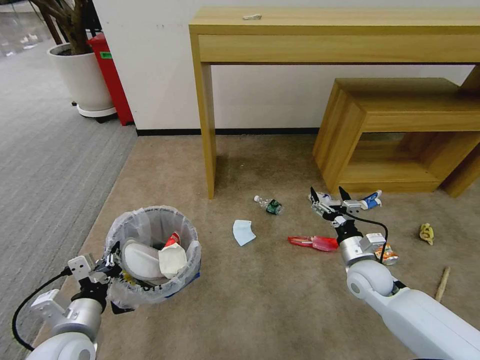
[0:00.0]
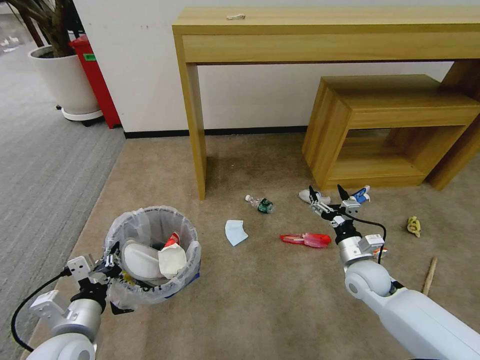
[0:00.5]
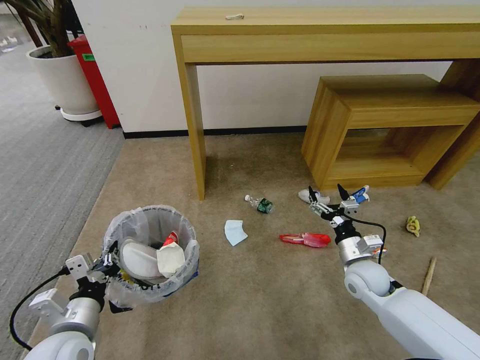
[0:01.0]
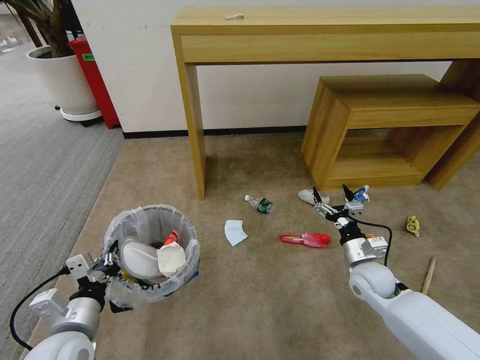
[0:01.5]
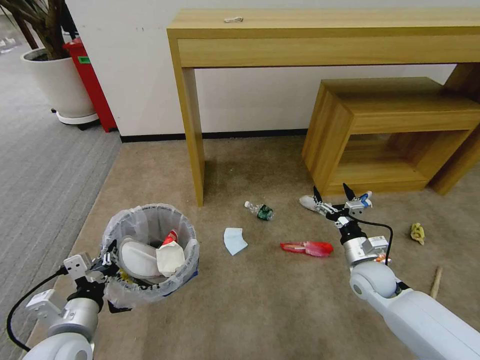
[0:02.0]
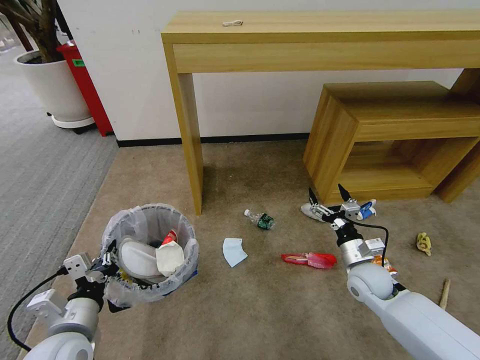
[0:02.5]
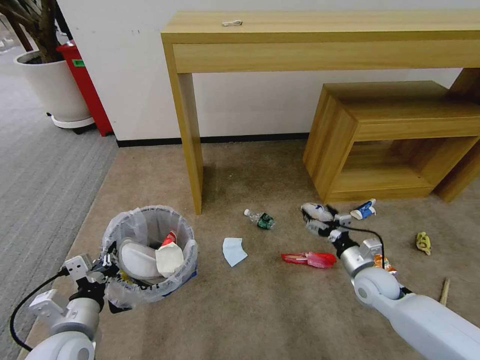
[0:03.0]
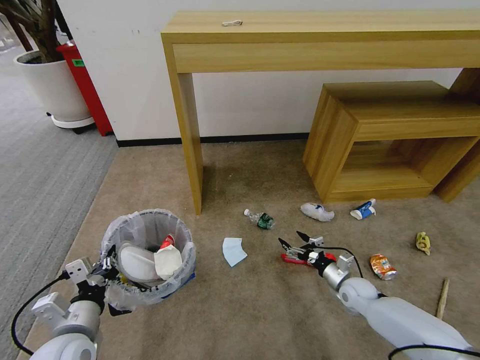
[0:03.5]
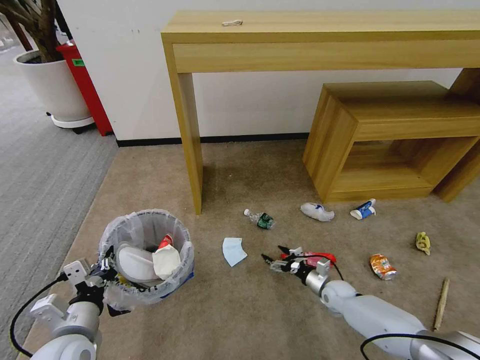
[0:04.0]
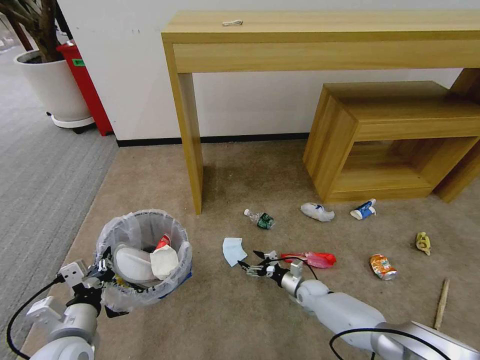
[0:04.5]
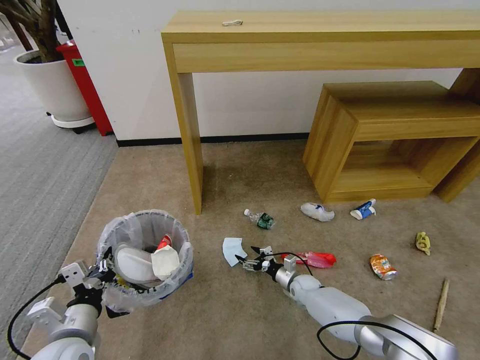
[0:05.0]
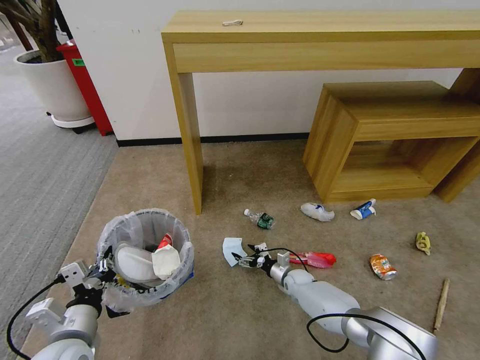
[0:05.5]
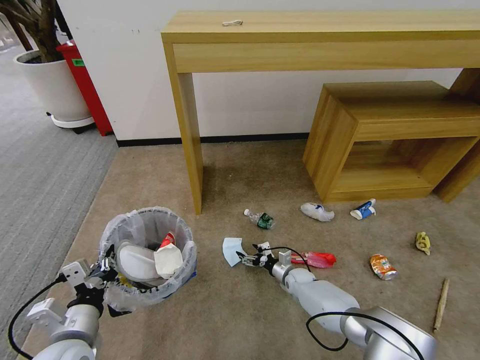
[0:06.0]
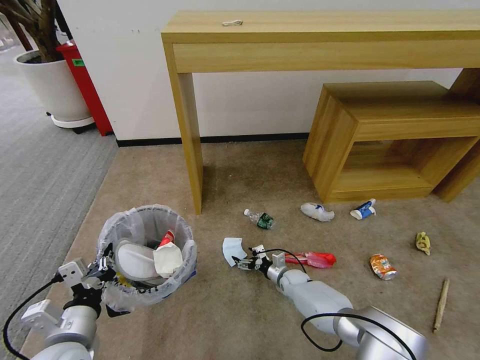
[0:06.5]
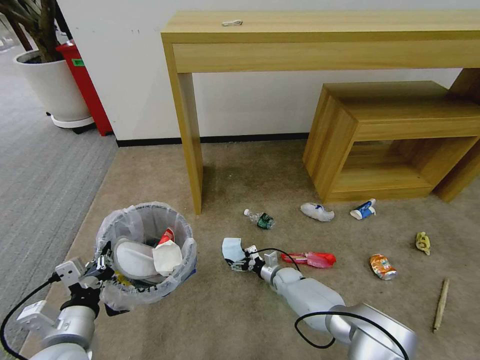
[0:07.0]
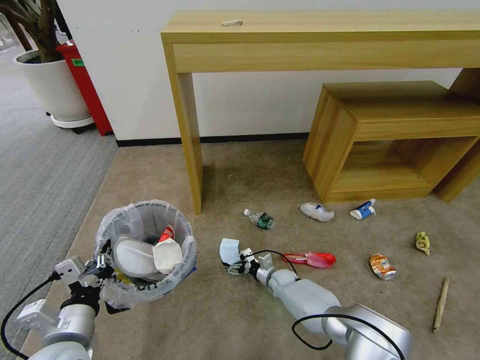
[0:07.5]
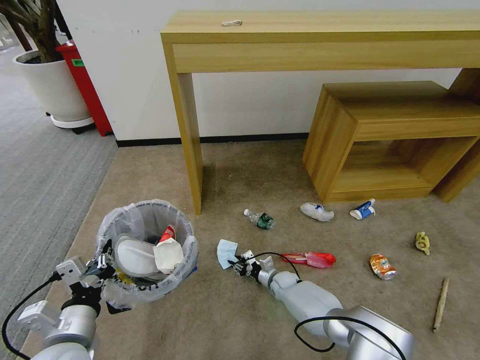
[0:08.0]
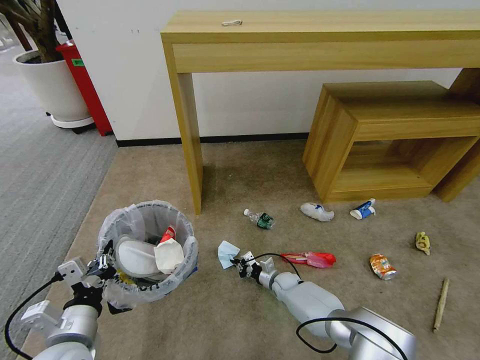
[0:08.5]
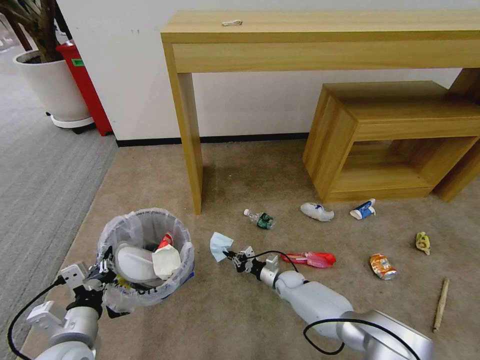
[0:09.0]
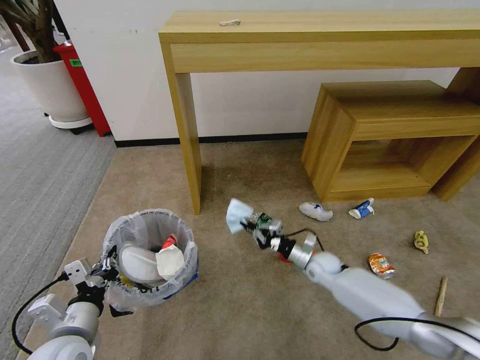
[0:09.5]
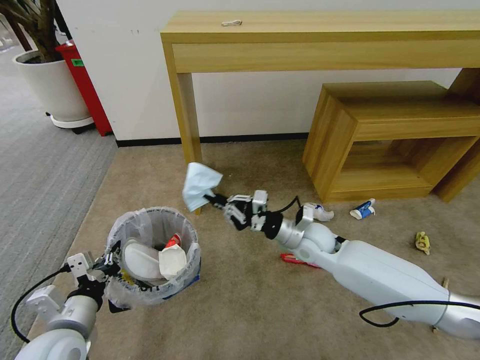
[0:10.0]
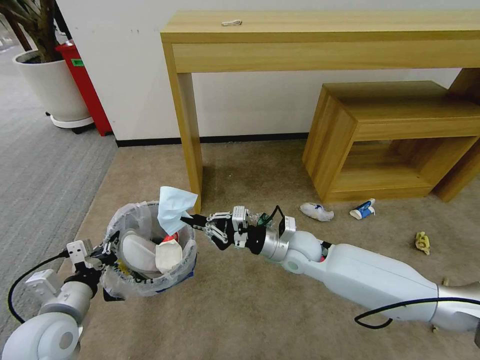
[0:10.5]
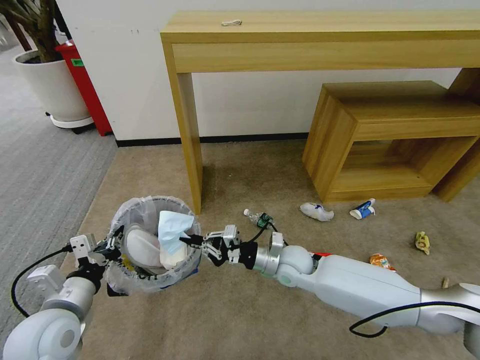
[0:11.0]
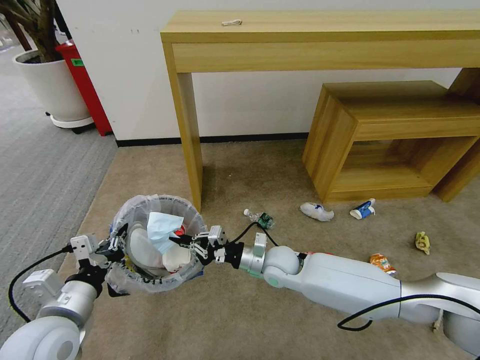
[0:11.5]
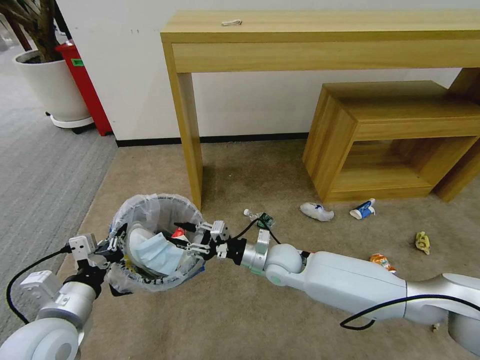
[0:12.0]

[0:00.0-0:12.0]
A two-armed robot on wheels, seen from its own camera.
Task of the whole recording: Pick up the trash bin and place the garbage on the floor into it.
0:02.0 to 0:04.0: The right gripper goes some 20 cm downward.
0:04.0 to 0:06.0: The right gripper shifts some 10 cm to the left and forward.
0:06.0 to 0:08.0: The right gripper moves to the left, some 5 cm, and closes.
0:08.0 to 0:10.0: The right gripper goes approximately 30 cm upward, and closes.
0:10.0 to 0:12.0: The right gripper moves to the left and downward, approximately 10 cm, and opens its fingers.

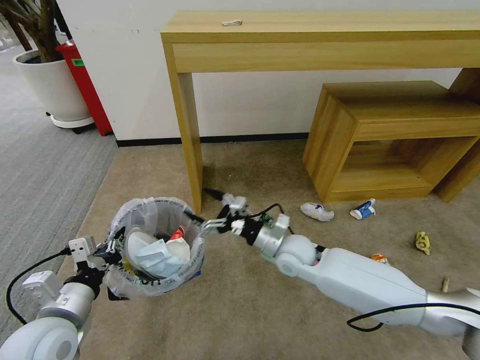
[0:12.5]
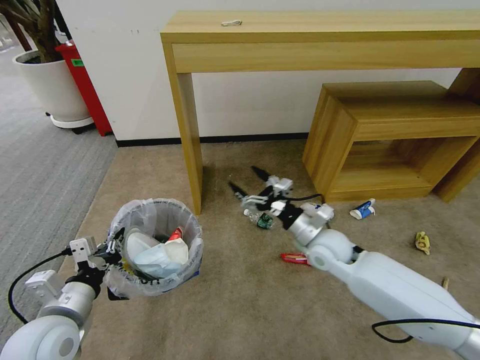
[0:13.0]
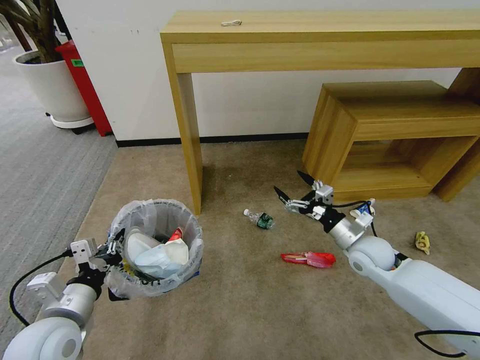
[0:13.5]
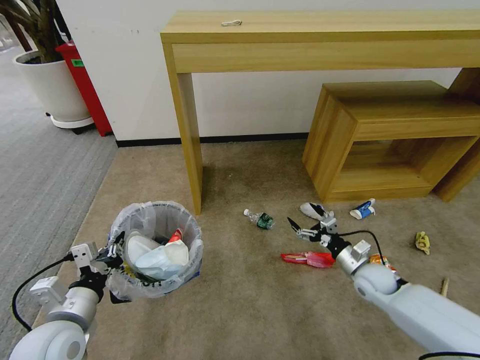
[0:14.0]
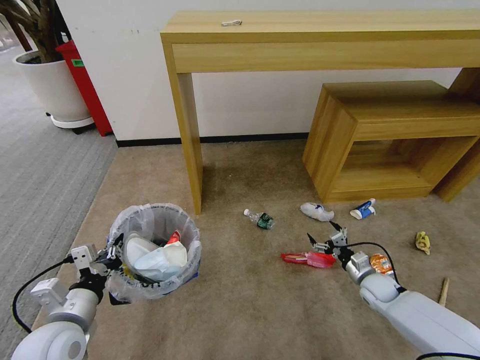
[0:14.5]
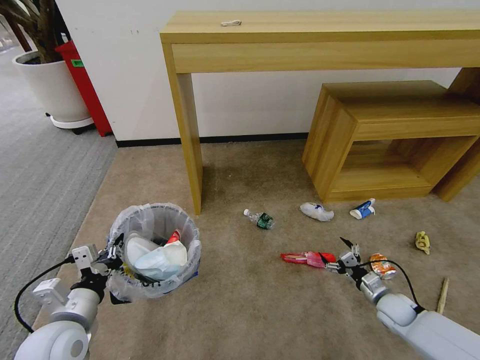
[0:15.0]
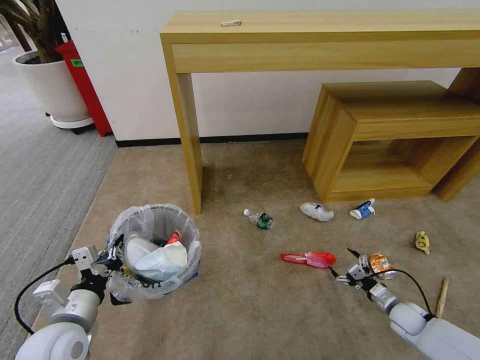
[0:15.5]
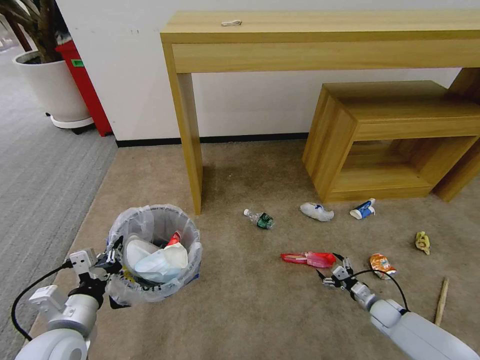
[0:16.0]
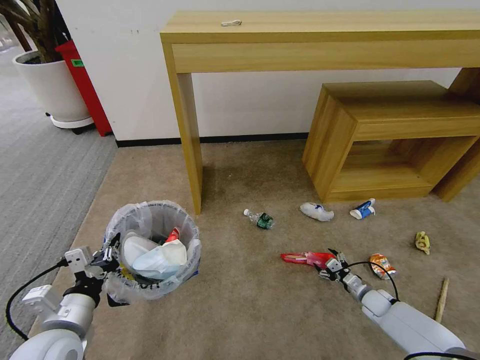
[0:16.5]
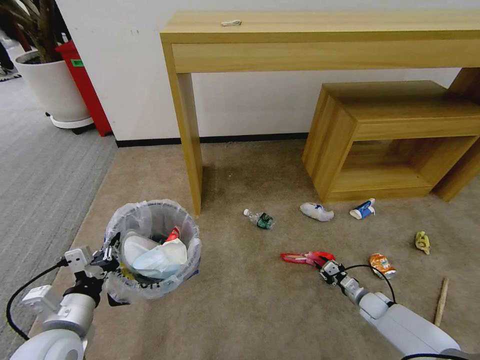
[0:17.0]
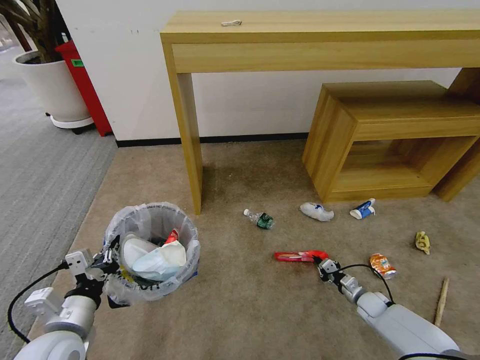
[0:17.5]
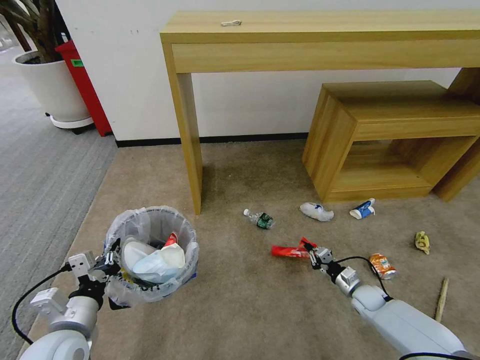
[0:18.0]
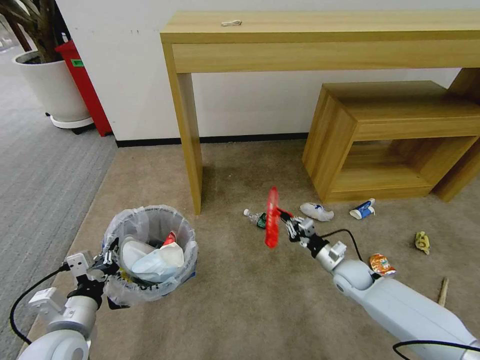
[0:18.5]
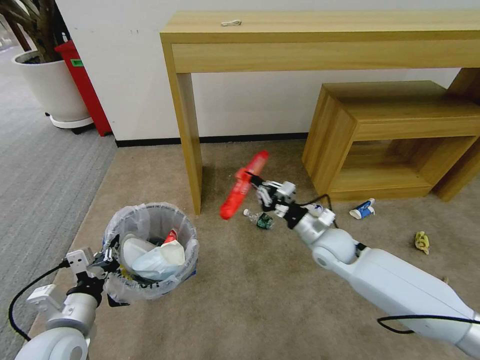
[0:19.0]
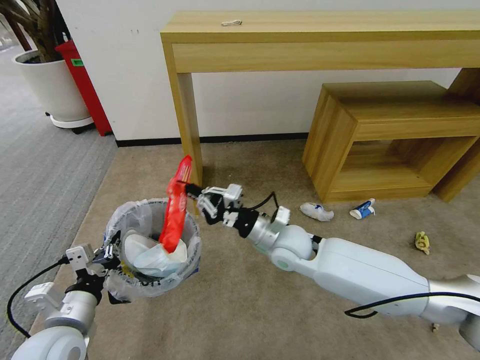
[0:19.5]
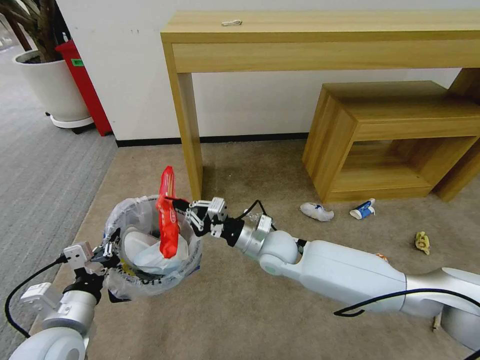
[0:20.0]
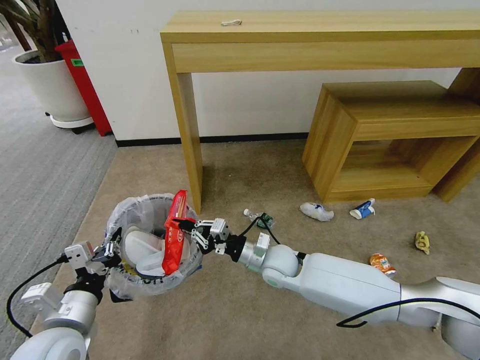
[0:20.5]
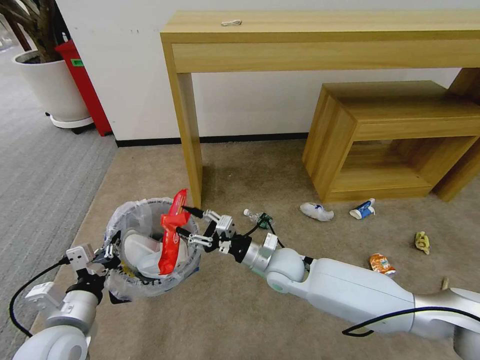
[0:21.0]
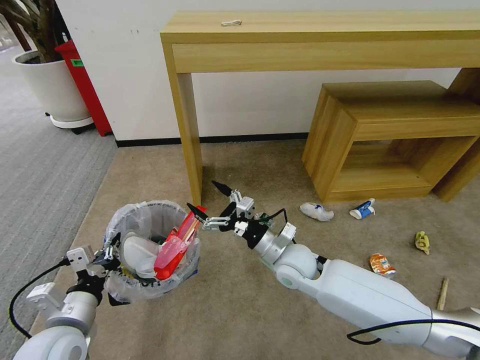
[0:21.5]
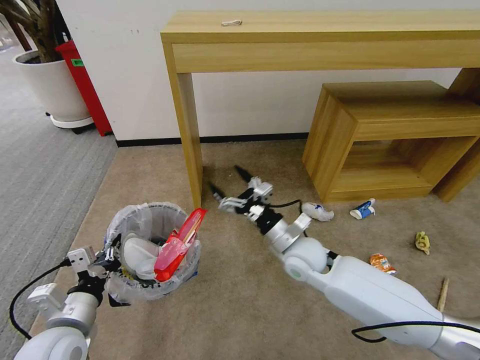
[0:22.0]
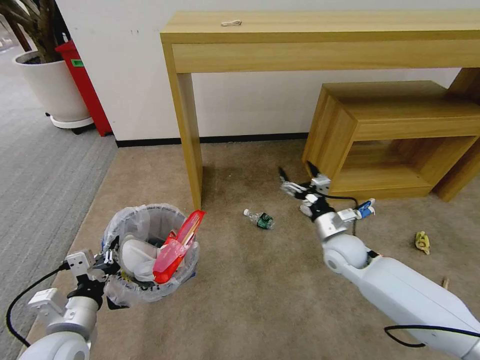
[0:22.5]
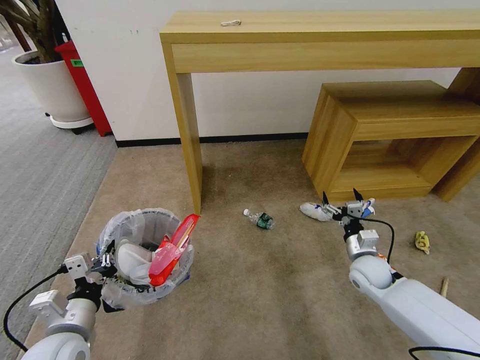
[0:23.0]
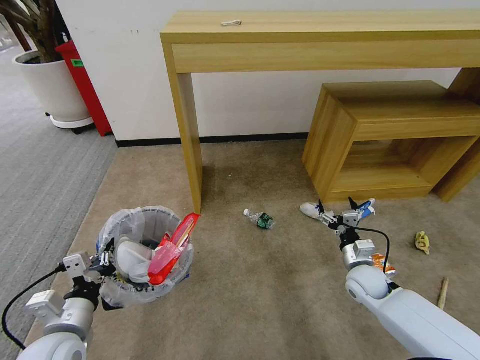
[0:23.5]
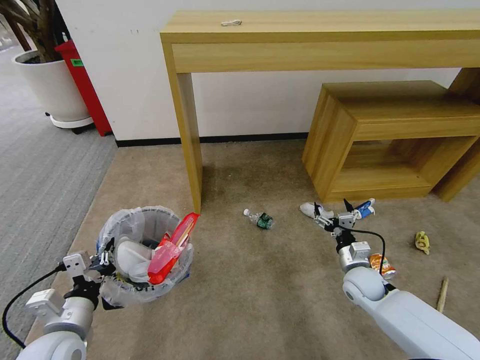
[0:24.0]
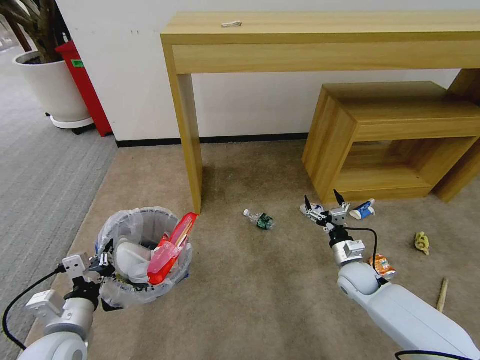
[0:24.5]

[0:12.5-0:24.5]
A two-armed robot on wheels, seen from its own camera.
Task of the whole recording: Pick up the trash bin and place the garbage on the floor into it.
0:12.5 to 0:14.5: The right gripper heads to the right and downward, covering approximately 30 cm.
0:14.5 to 0:16.5: The right gripper is displaced downward by roughly 10 cm.
0:16.5 to 0:18.5: The right gripper travels upward and to the left by approximately 15 cm, and closes up.
0:18.5 to 0:20.5: The right gripper goes roughly 20 cm to the left.
0:20.5 to 0:22.5: The right gripper shifts approximately 15 cm to the right, and opens its fingers.
0:22.5 to 0:24.5: The right gripper is displaced downward and to the right by roughly 10 cm.

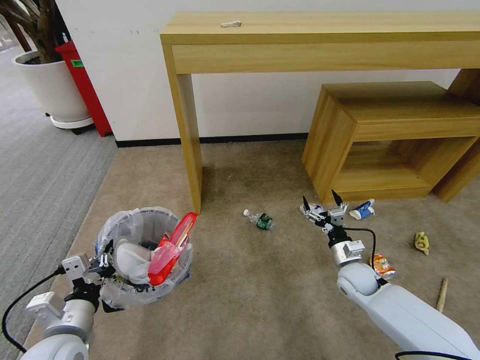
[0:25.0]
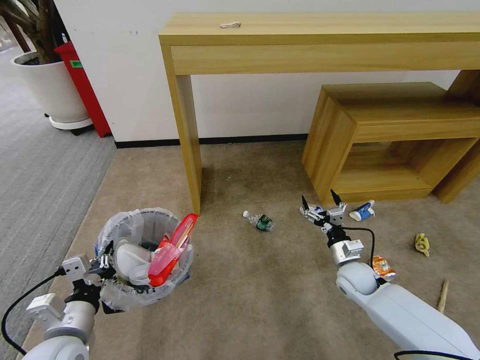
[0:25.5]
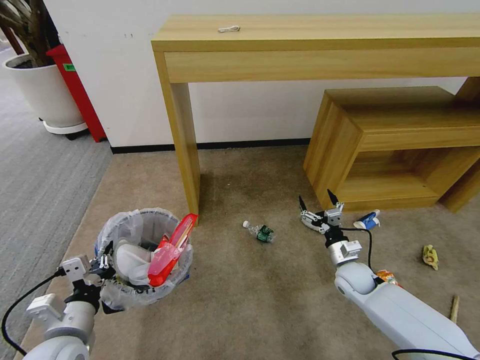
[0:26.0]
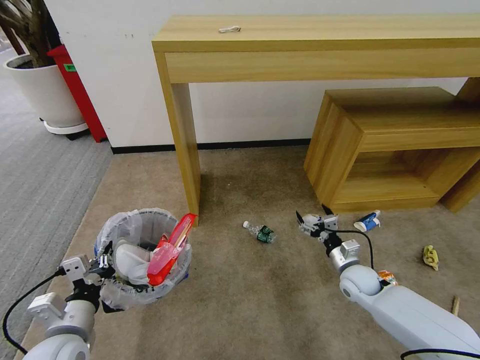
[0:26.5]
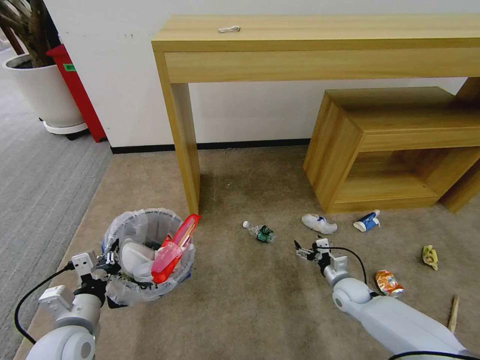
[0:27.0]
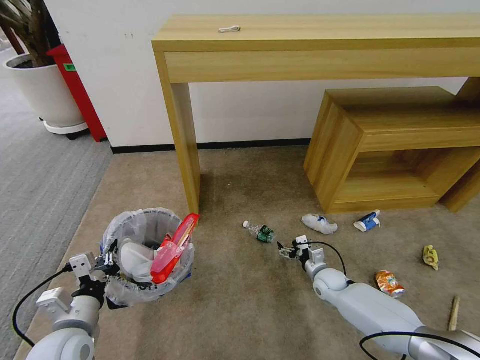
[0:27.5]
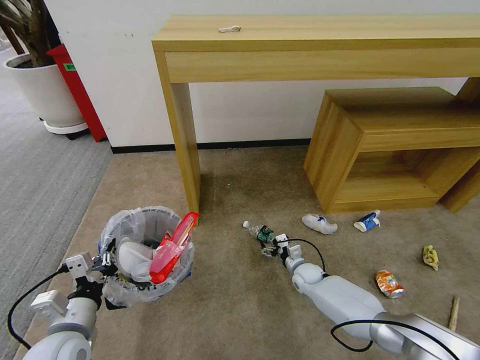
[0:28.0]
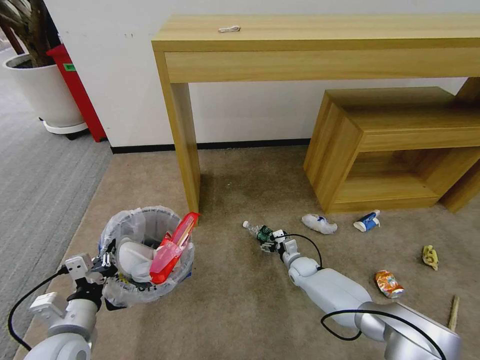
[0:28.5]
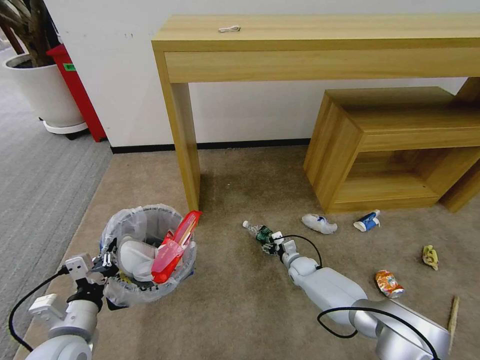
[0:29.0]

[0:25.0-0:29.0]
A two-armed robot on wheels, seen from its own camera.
Task of the whole recording: Pick up the trash bin and place the garbage on the floor into it.
0:25.0 to 0:27.0: The right gripper moves downward, about 5 cm.
0:27.0 to 0:29.0: The right gripper is displaced to the left, forward and downward by approximately 15 cm.
